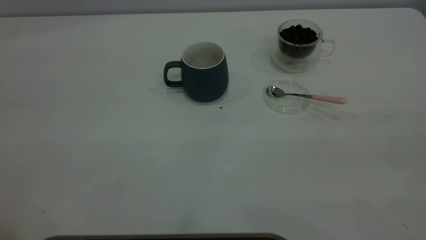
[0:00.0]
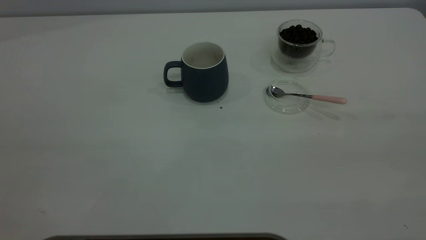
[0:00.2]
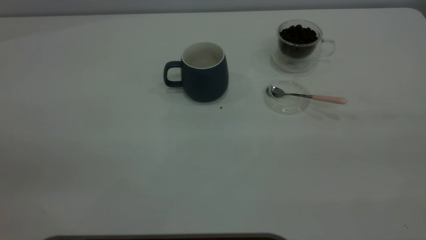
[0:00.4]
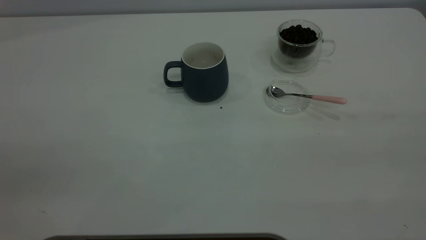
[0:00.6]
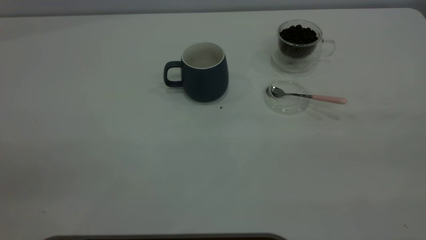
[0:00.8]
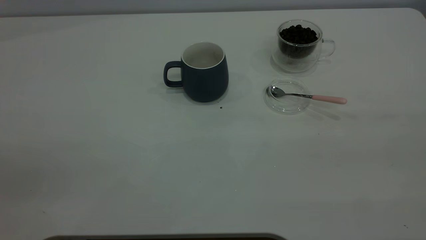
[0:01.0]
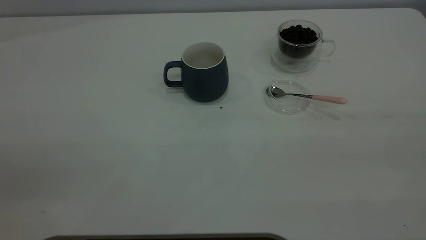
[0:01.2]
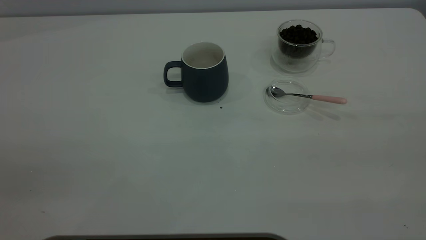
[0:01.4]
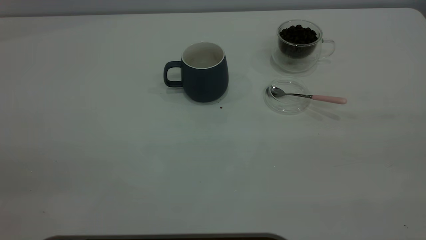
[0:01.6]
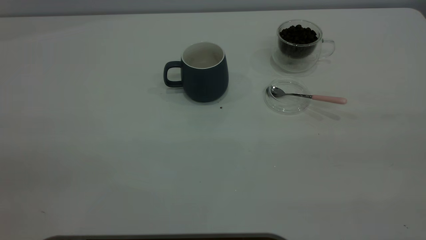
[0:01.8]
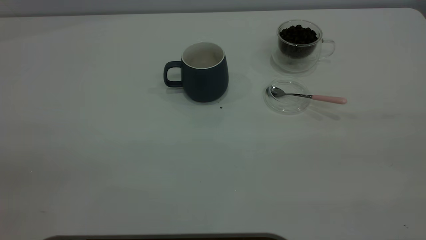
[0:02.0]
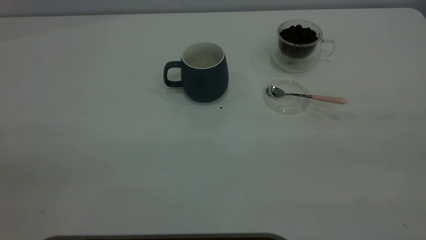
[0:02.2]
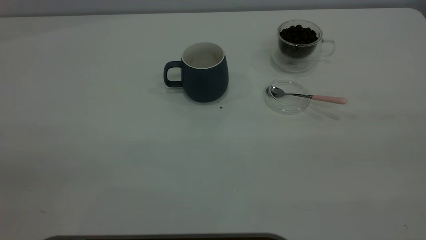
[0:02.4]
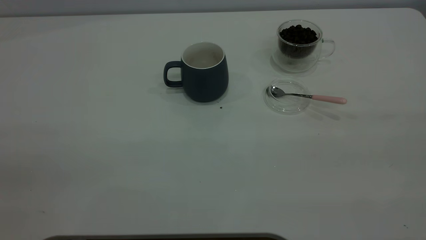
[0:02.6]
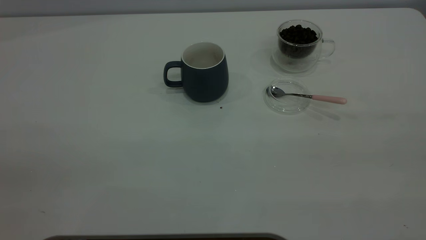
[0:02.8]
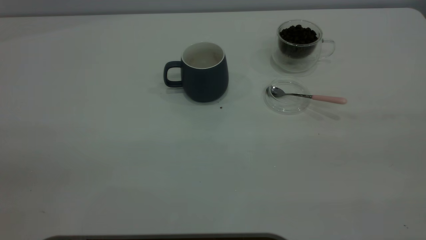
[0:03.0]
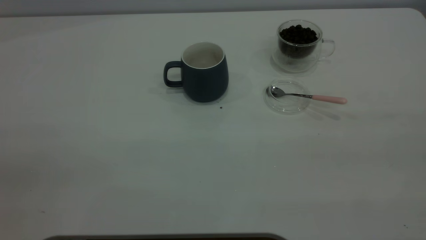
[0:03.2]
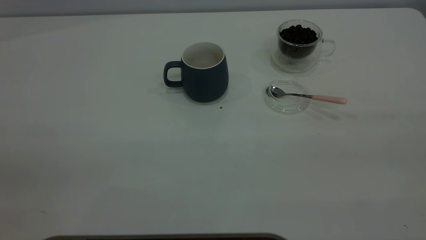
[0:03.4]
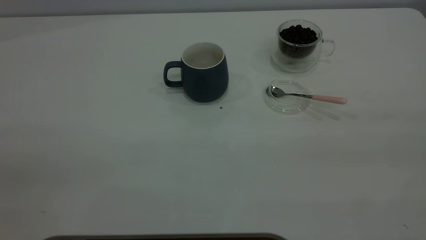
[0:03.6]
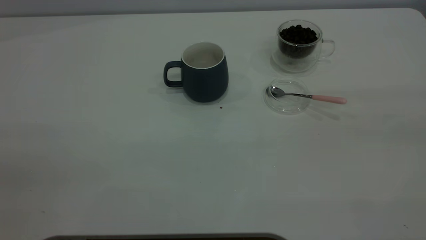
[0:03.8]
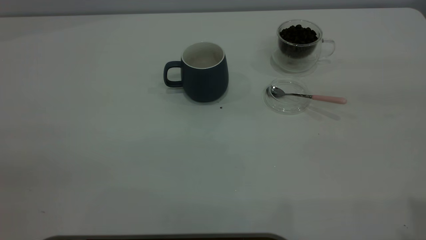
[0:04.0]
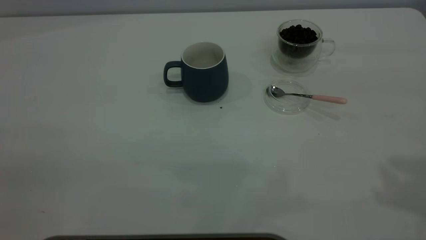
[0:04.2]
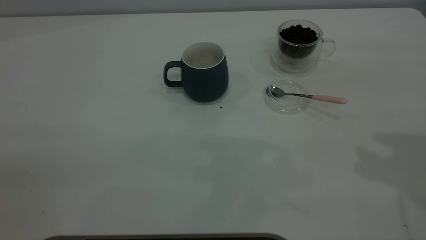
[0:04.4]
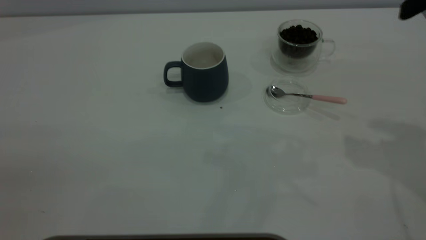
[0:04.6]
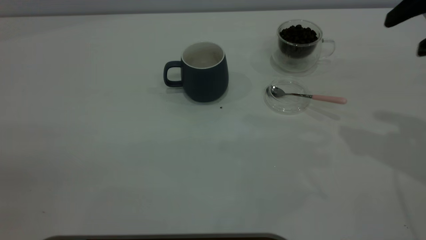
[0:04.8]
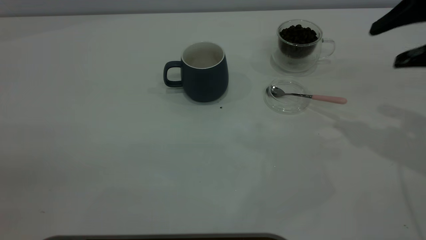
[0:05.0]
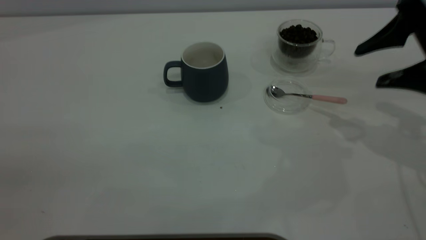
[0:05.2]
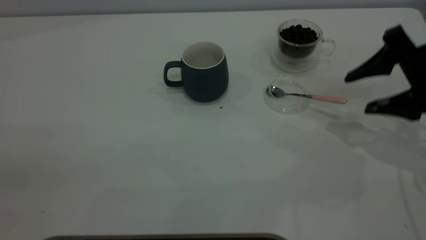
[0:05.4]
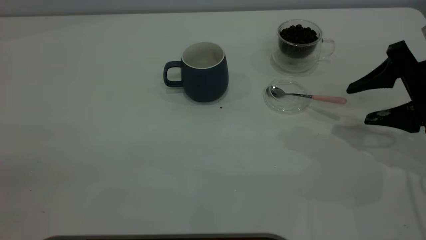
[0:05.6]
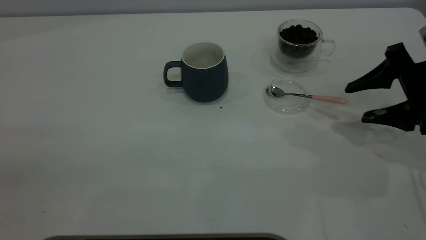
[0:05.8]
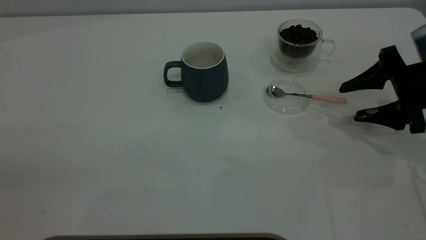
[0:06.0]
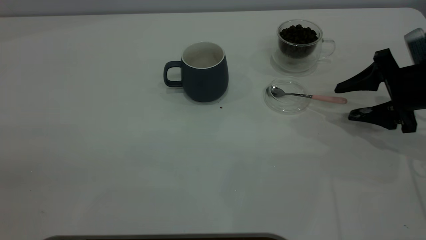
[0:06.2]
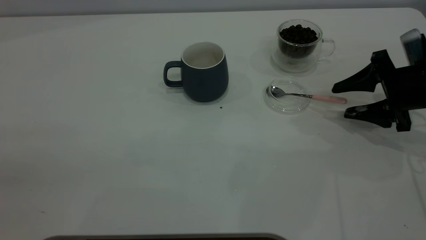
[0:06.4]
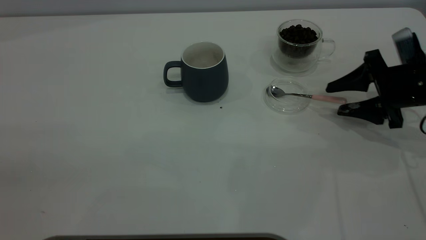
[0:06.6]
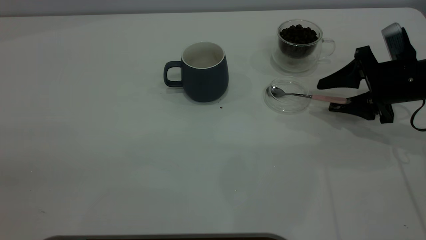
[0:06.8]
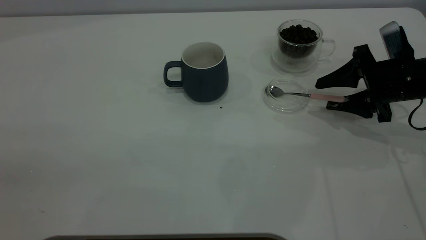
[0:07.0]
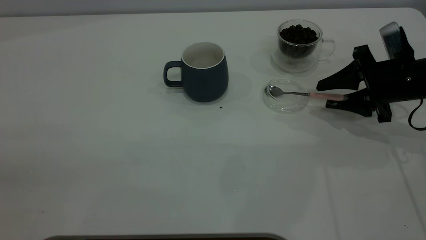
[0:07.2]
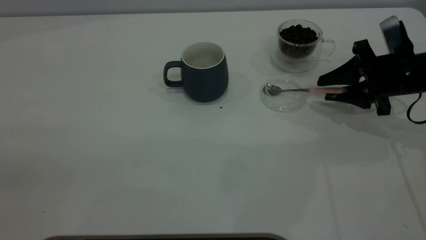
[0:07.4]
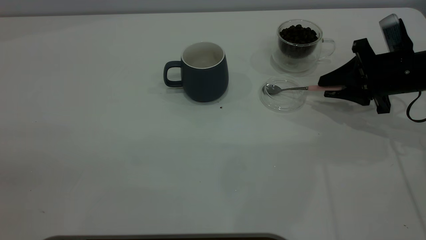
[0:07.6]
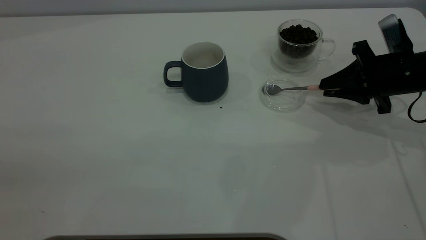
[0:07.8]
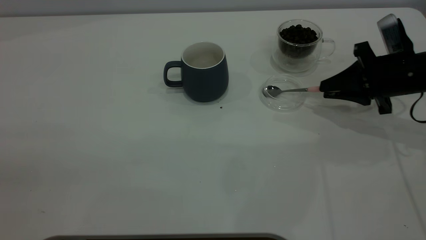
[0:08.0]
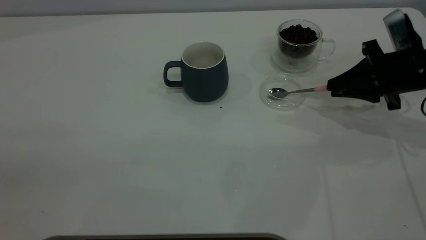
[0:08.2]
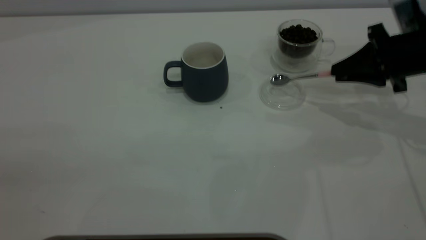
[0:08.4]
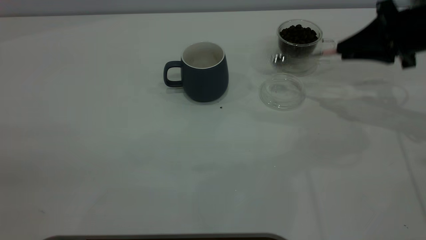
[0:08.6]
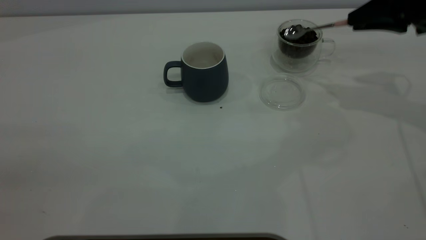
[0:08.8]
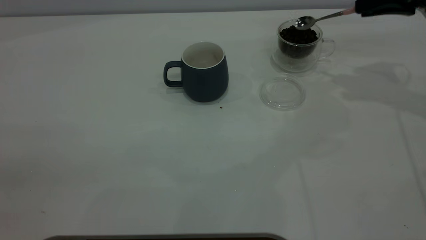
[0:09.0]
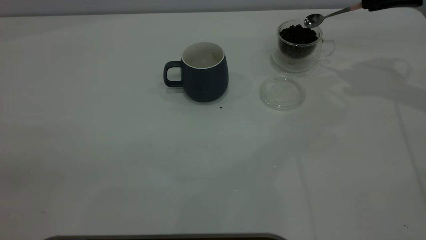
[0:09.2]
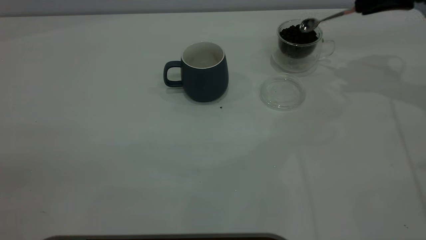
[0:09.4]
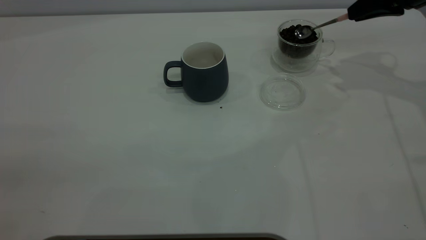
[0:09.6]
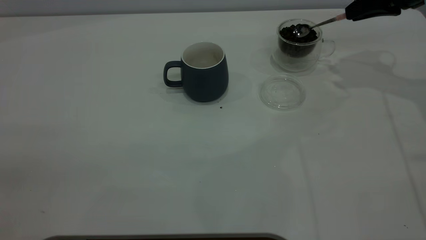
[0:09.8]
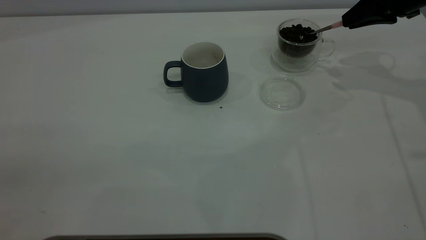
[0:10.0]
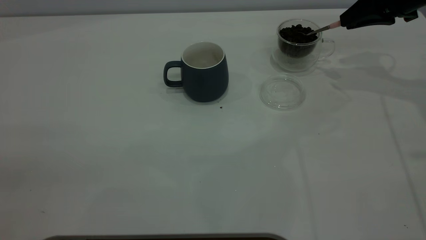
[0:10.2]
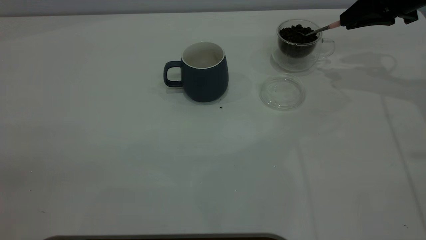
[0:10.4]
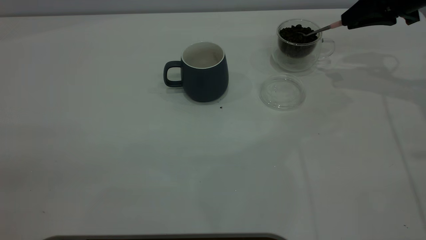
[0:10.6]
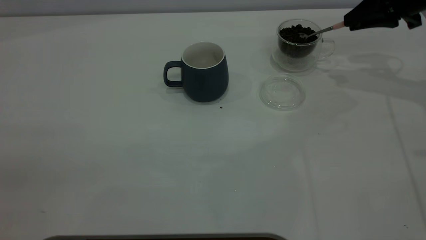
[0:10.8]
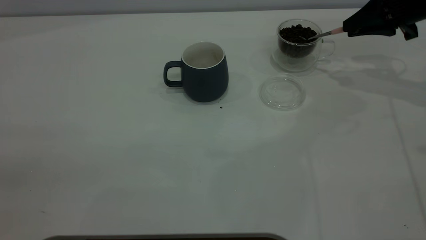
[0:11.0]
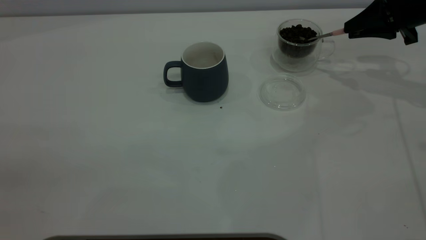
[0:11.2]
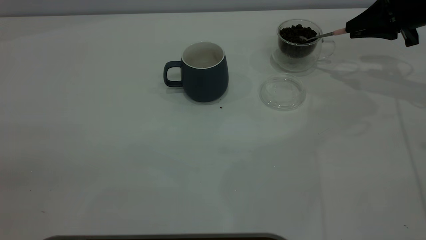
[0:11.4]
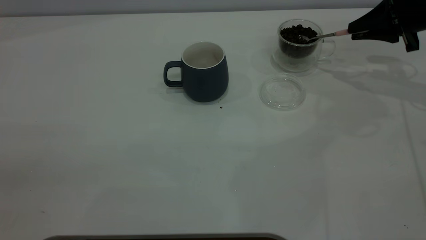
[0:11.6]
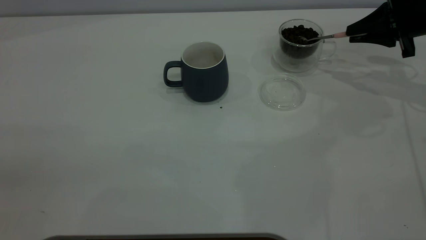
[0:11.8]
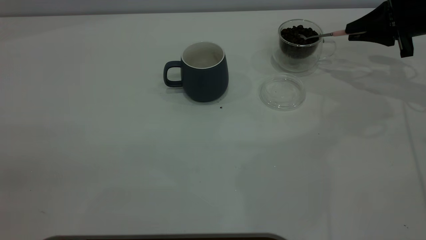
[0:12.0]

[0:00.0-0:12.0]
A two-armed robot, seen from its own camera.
Task of the whole recording: the left gripper place the grey cup in the center of the table, the right gripper take the pink spoon from the cup lid and scoop out the coffee beans from the coffee cup and put them into the grey cup, the right gripper put the spoon back into the cup lid.
Step, 0:00.0 to 0:08.4: Pick up the spoon.
0:04.4 to 0:06.0: The right gripper heads downward, covering roughly 25 cm.
0:06.0 to 0:07.6: The right gripper changes place by some 5 cm, and closes.
0:07.6 to 0:09.0: The right gripper shifts approximately 15 cm upward and forward.
0:09.0 to 0:10.4: There are only small adjustments of the grippers.
0:10.4 to 0:12.0: The right gripper shifts by some 5 cm.

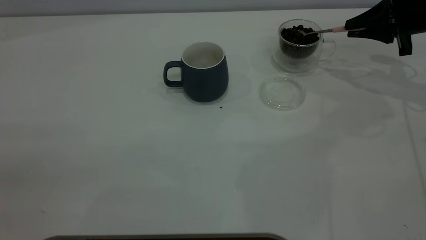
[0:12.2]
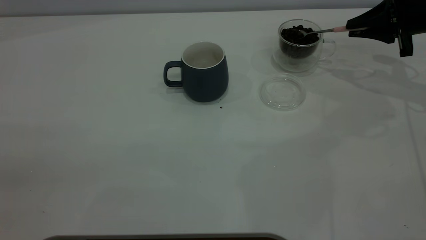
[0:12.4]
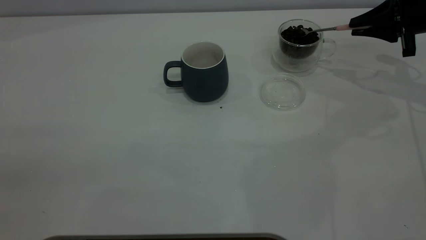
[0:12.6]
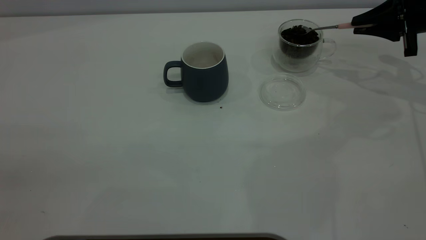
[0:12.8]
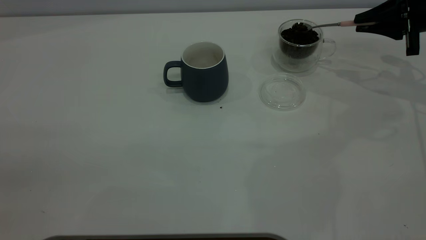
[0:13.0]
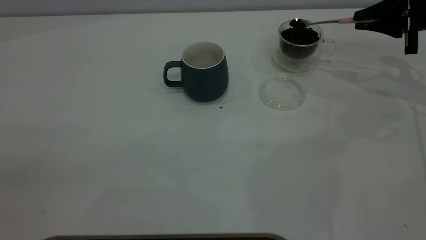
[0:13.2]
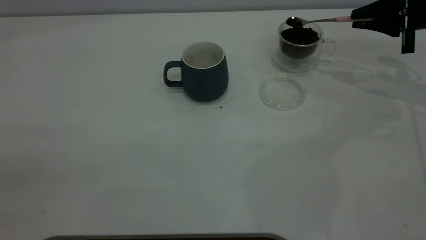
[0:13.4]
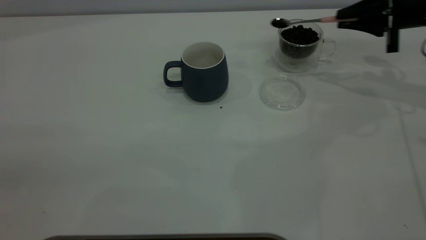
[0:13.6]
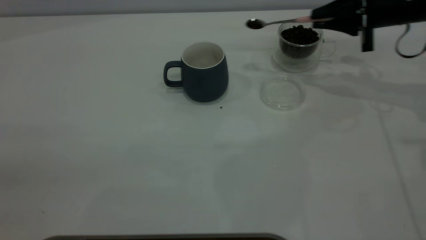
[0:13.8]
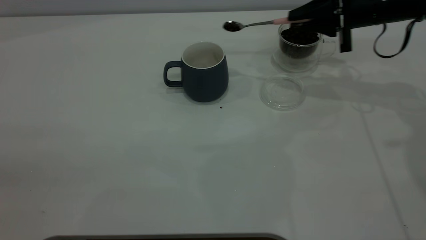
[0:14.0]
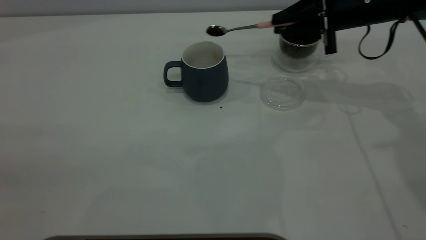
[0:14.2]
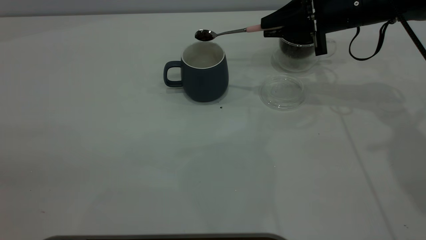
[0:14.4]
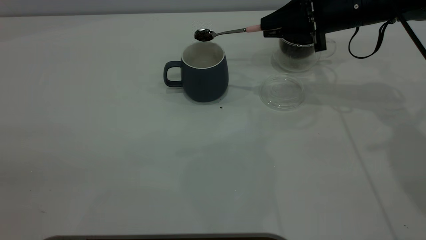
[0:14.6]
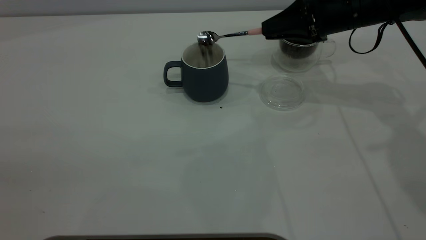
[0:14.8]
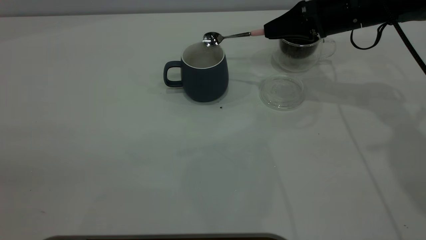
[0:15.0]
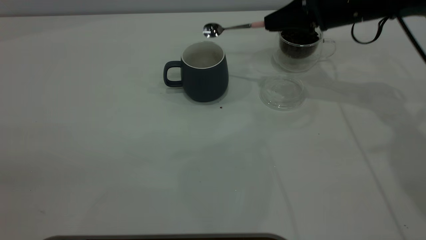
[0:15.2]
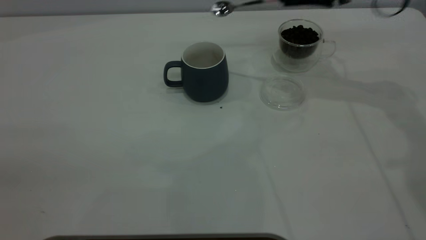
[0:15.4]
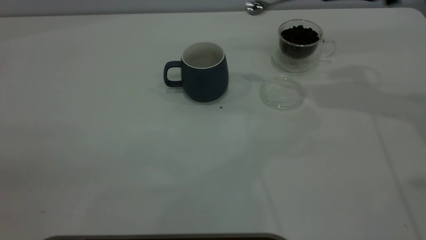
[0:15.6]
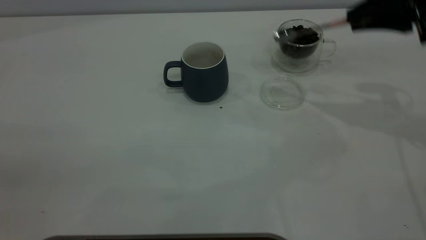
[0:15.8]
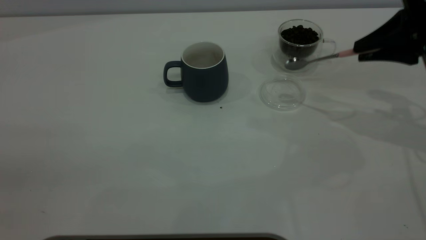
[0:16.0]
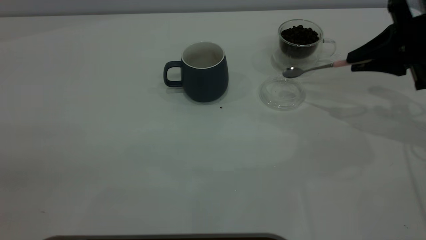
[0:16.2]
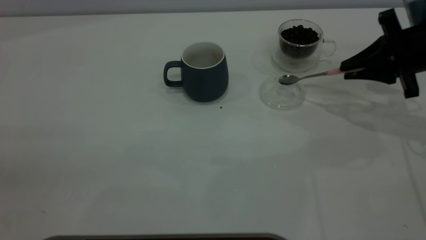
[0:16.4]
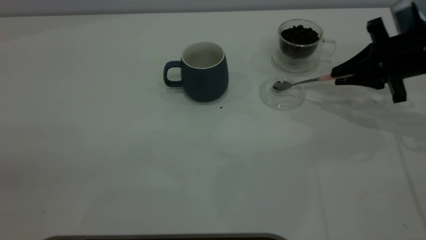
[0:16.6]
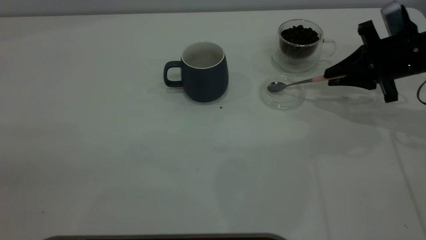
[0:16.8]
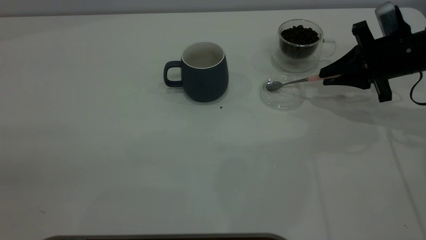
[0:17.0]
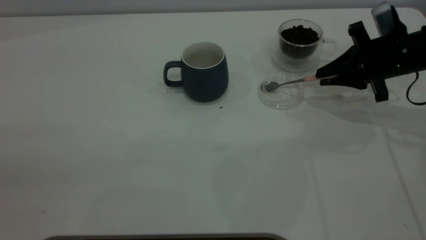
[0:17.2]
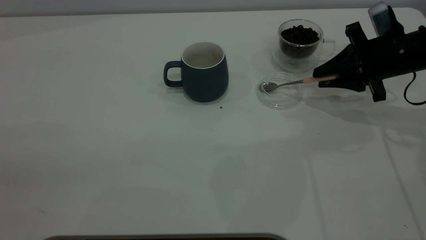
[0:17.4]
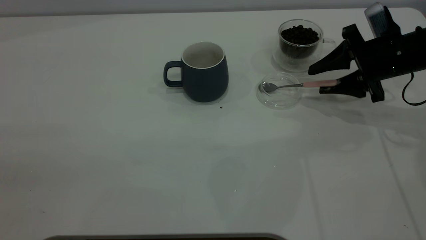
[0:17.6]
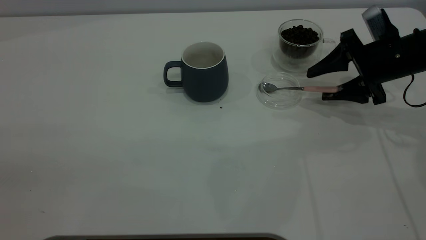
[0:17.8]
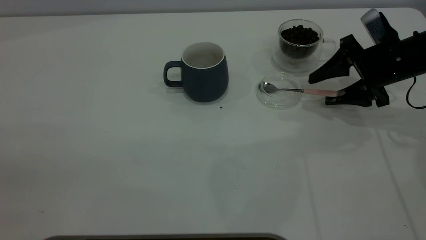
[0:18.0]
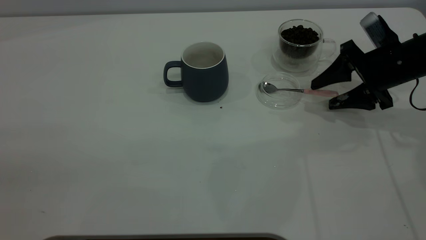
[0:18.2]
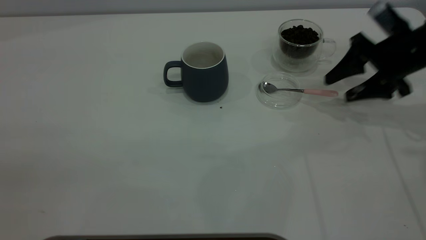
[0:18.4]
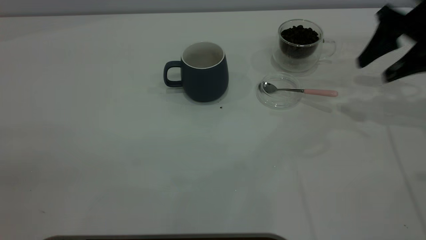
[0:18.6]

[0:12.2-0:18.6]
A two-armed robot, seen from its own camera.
Task of the whole recording: the left gripper place the grey cup in the center of the table, the right gripper take the pink spoon from the cup lid and scoop out the coffee beans from the coffee cup and put them into the grey cup, the right gripper put the spoon back into the cup lid.
Step, 0:12.2 to 0:15.0: Scoop a spoonful of beans into the cup.
Step, 0:15.4 to 0:18.4: Place the spoon back in its original place.
0:12.2 to 0:13.8: The right gripper moves to the left, approximately 5 cm.
0:13.8 to 0:15.4: The right gripper heads upward, covering roughly 5 cm.
0:15.4 to 0:17.0: The right gripper shifts some 15 cm downward and to the right.
0:17.0 to 0:18.6: The right gripper travels upward by approximately 10 cm, and opens.
